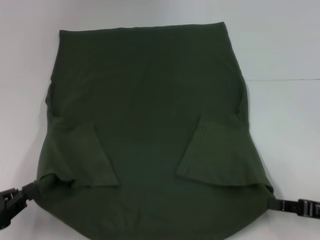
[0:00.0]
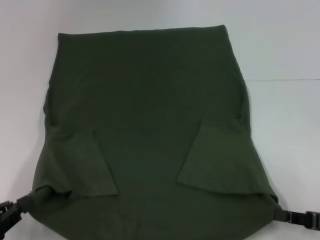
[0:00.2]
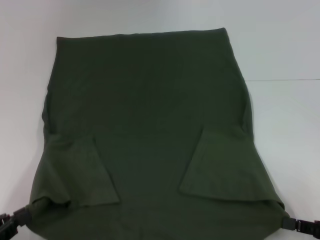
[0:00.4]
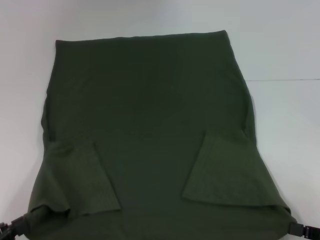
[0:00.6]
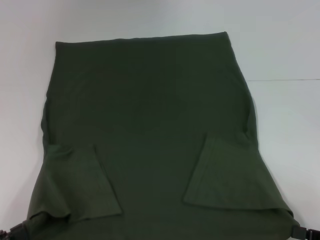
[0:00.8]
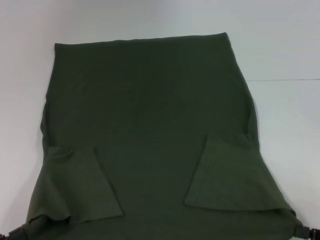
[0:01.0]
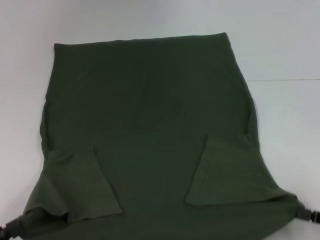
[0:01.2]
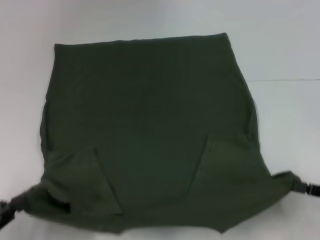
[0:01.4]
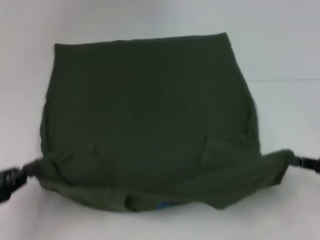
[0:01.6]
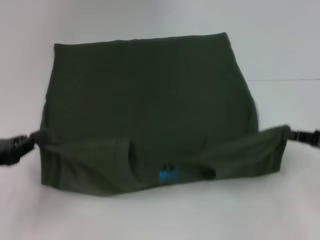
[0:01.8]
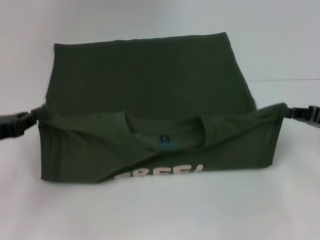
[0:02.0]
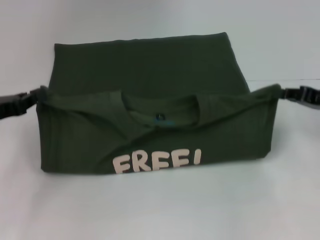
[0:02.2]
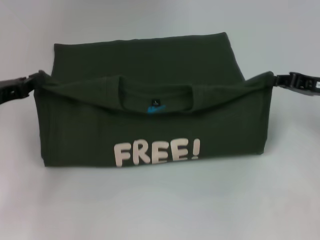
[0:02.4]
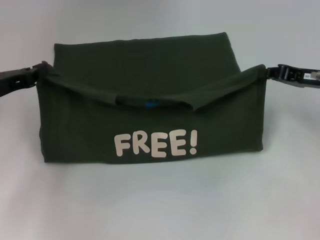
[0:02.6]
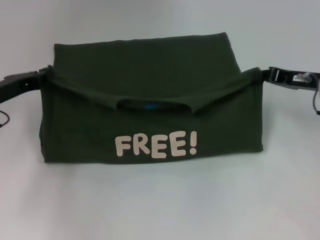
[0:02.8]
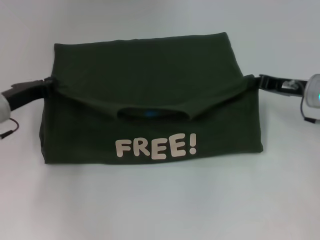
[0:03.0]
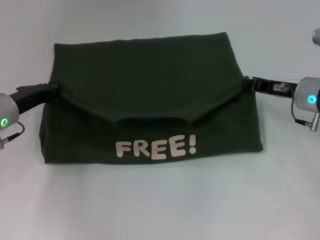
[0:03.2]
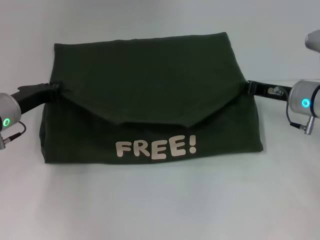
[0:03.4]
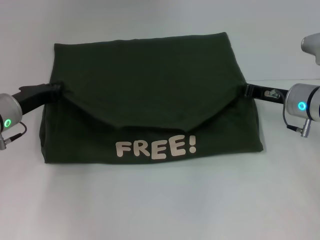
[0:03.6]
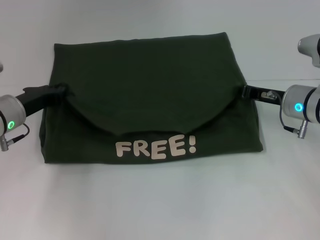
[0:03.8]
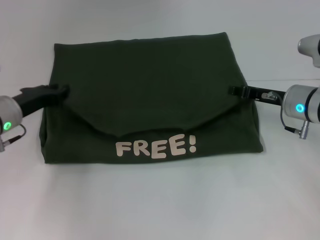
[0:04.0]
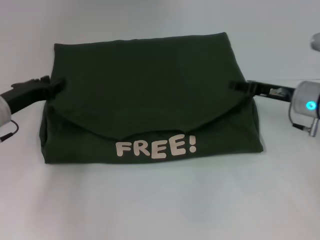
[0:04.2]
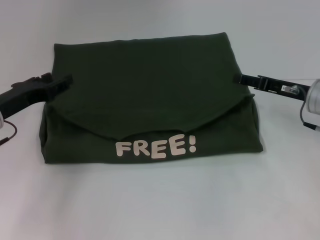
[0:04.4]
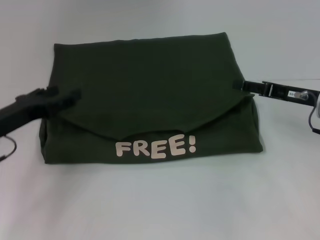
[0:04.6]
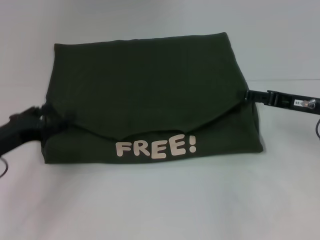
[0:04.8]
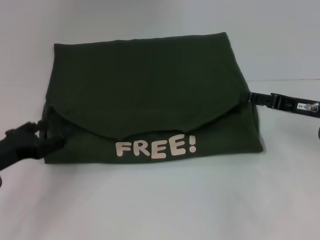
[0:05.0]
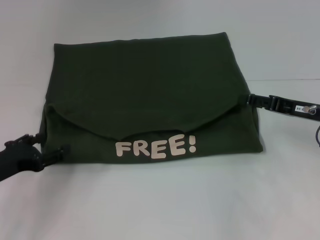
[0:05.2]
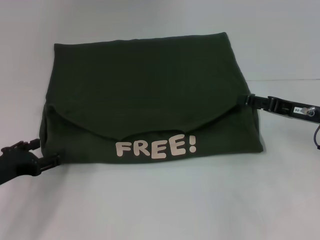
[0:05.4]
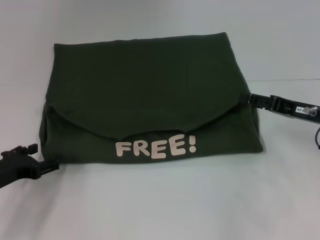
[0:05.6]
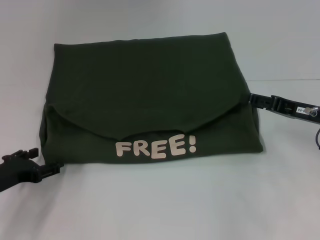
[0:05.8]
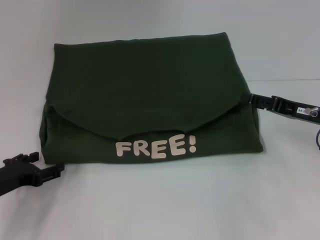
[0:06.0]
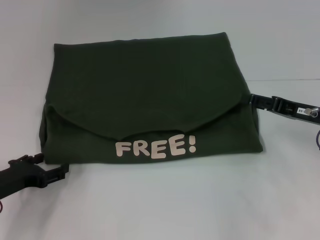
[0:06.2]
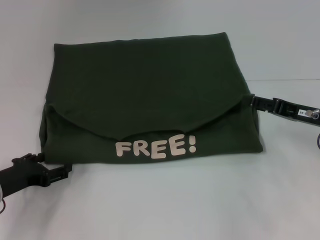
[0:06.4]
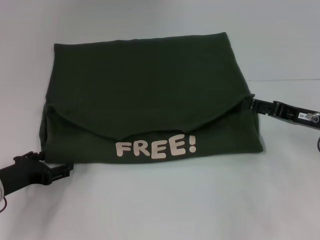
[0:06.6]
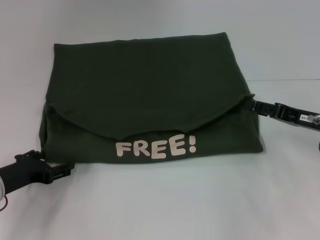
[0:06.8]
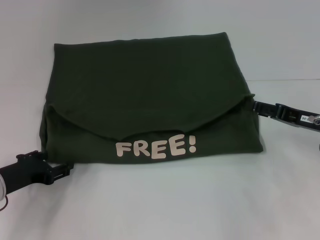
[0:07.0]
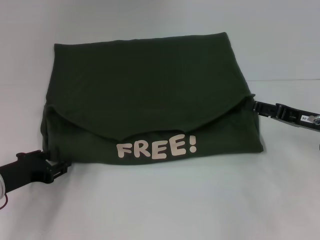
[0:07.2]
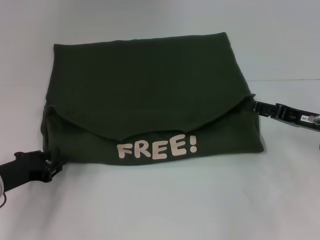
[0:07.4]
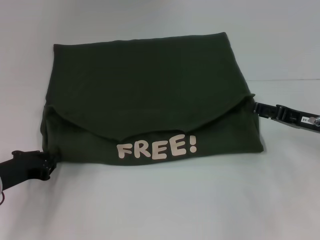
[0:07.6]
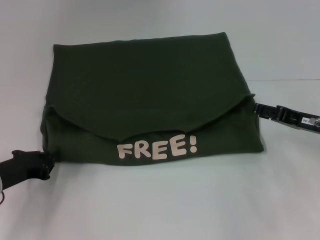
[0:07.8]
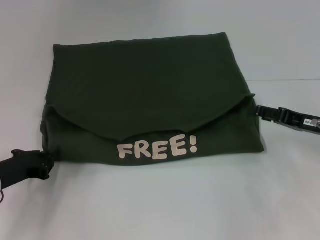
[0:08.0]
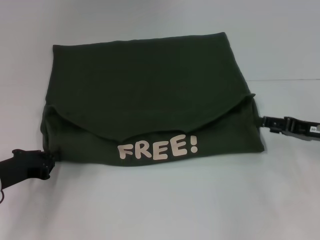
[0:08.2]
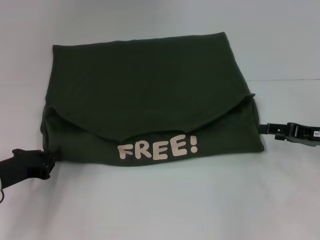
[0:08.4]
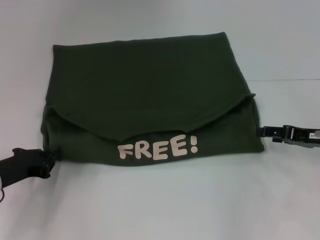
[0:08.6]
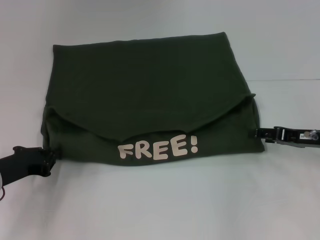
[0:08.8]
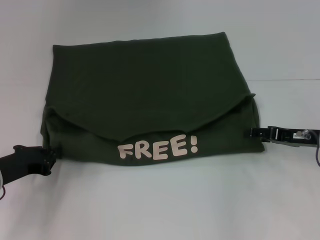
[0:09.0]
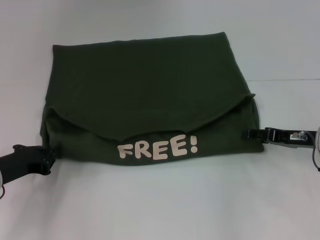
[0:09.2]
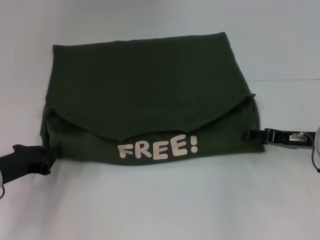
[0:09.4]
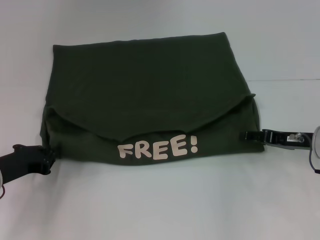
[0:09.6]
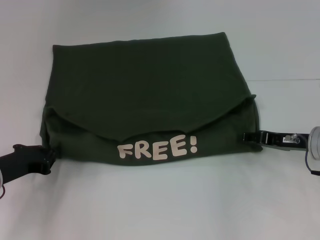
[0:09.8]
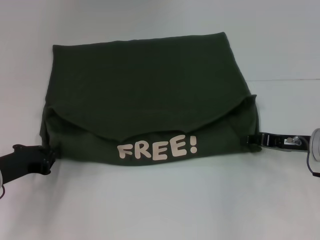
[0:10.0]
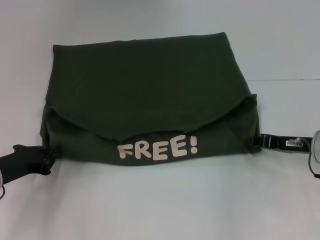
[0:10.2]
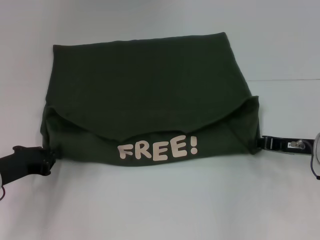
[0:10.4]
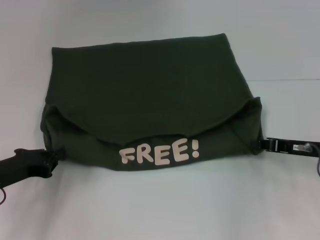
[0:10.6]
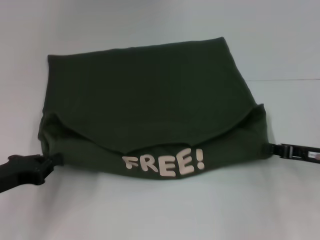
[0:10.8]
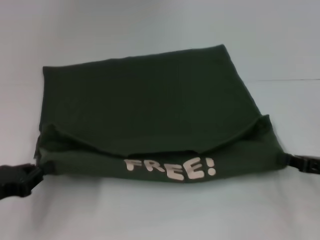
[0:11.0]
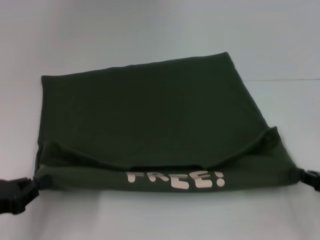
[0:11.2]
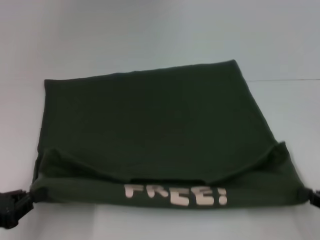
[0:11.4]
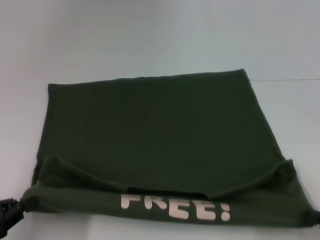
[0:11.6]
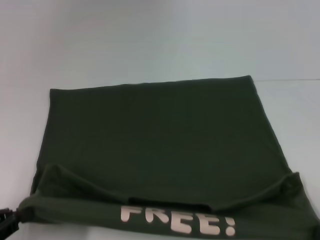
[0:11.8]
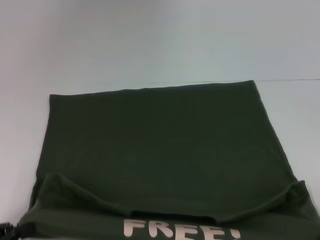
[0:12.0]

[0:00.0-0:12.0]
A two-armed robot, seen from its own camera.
Step, 0:00.0 to 0:04.8: Fold the clothes with your left hand.
Step, 0:00.0 to 0:04.8: Fold the clothes with your right hand.
Step, 0:05.0 to 0:11.2: Pull the clothes with your left hand.
Step, 0:05.0 to 0:11.2: Pull the clothes with your right hand.
0:00.0 to 0:01.6: The right gripper travels backward and back again, about 5 cm each way, while the left gripper travels backward and back again, about 5 cm each way.
0:01.6 to 0:03.0: The left gripper heads forward, covering about 20 cm; the right gripper is displaced forward and to the left by approximately 15 cm.
0:03.0 to 0:04.4: The left gripper opens up. Meanwhile the right gripper opens up.
0:04.4 to 0:06.0: The left gripper is displaced downward and backward by approximately 10 cm, and opens up, while the right gripper opens.
0:06.0 to 0:07.6: The left gripper closes up.
0:07.6 to 0:09.0: The grippers make only small movements.
0:09.0 to 0:10.4: The right gripper closes up.
0:10.4 to 0:12.0: The left gripper is displaced backward by approximately 15 cm. The right gripper travels backward by some 25 cm.

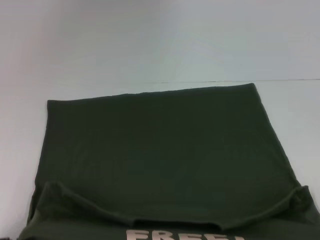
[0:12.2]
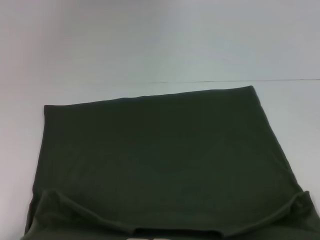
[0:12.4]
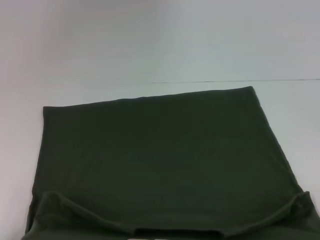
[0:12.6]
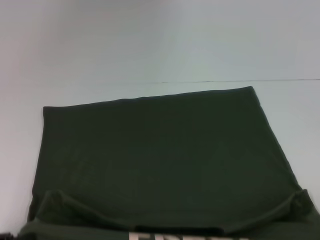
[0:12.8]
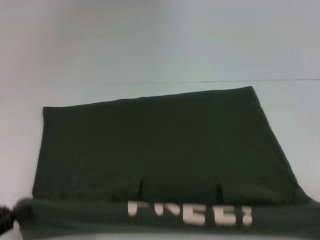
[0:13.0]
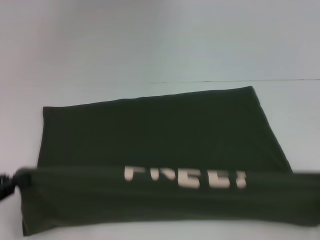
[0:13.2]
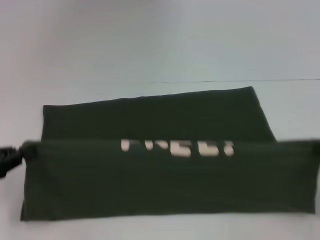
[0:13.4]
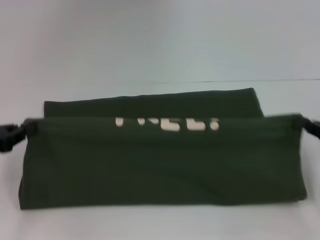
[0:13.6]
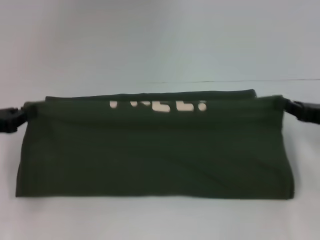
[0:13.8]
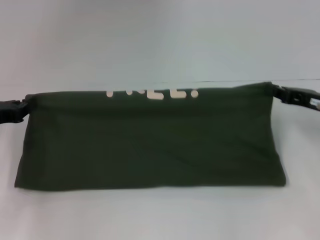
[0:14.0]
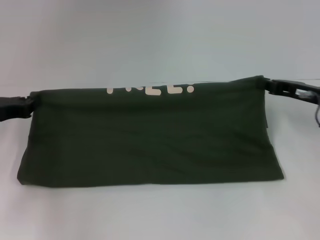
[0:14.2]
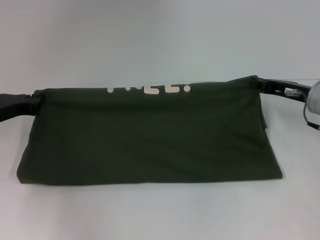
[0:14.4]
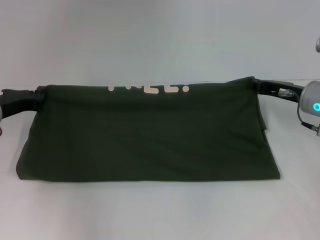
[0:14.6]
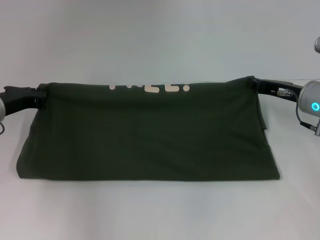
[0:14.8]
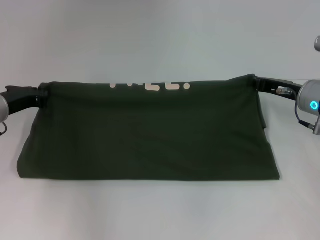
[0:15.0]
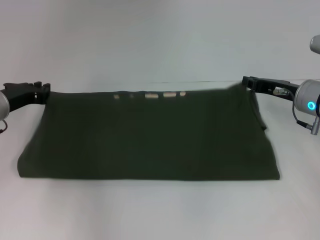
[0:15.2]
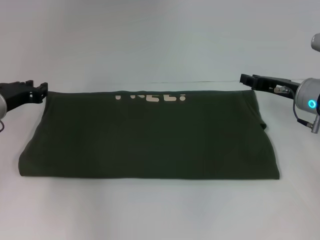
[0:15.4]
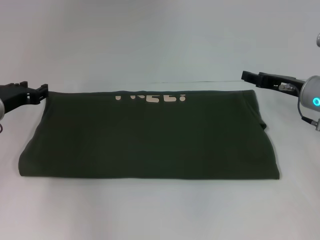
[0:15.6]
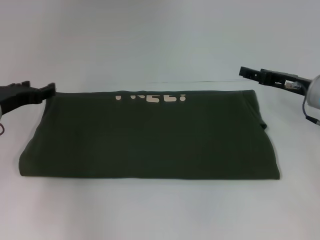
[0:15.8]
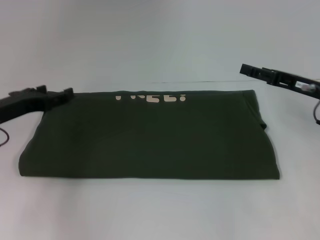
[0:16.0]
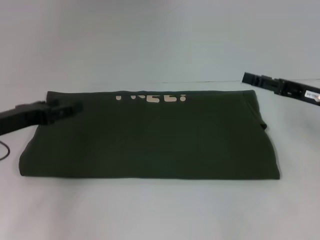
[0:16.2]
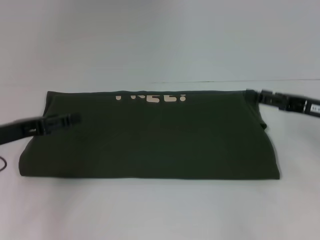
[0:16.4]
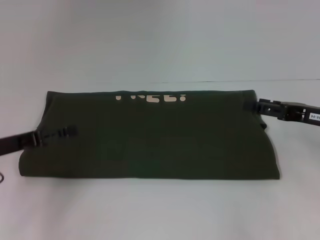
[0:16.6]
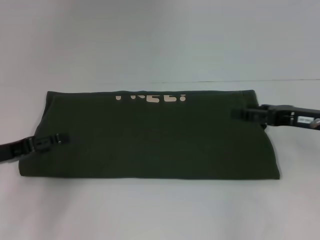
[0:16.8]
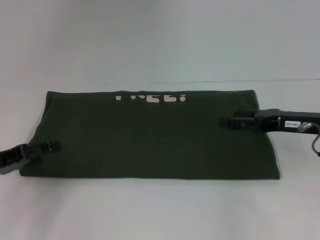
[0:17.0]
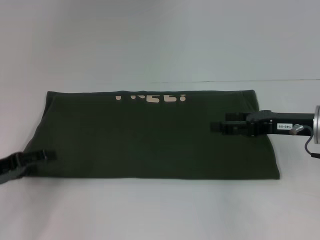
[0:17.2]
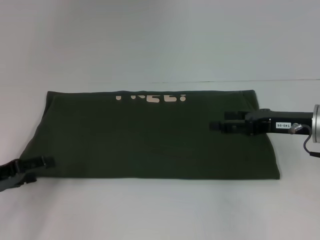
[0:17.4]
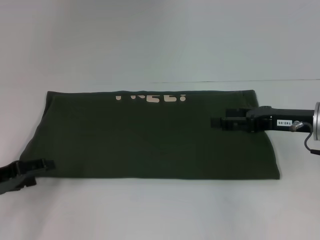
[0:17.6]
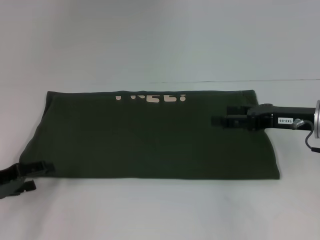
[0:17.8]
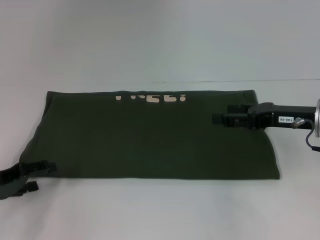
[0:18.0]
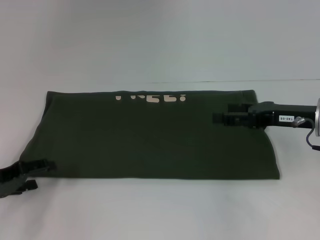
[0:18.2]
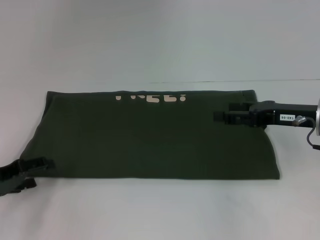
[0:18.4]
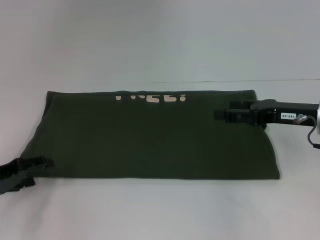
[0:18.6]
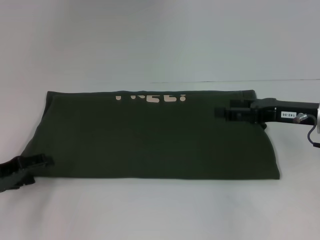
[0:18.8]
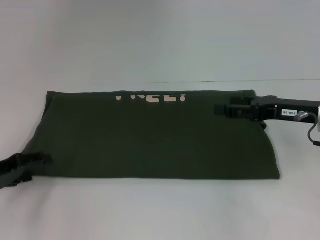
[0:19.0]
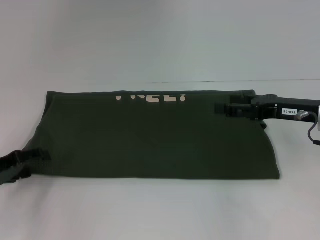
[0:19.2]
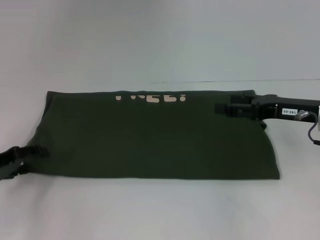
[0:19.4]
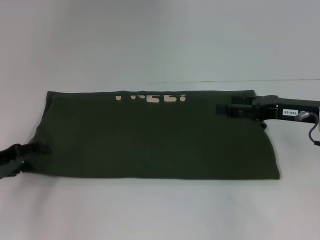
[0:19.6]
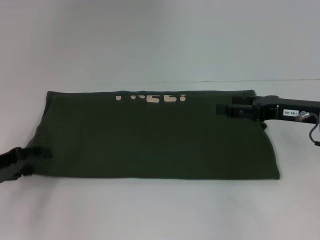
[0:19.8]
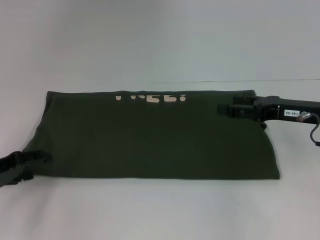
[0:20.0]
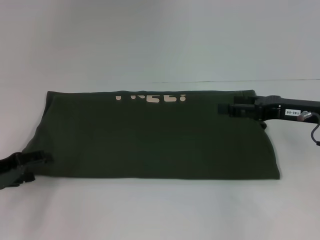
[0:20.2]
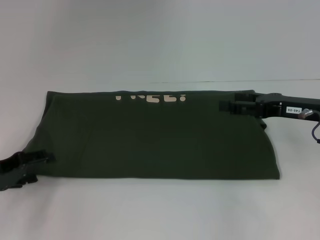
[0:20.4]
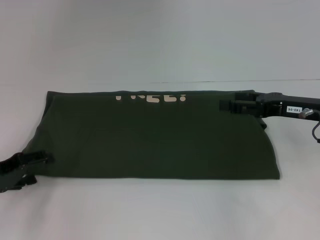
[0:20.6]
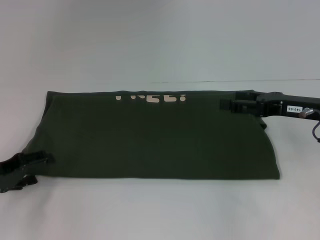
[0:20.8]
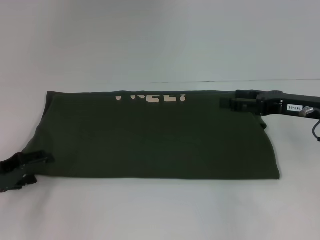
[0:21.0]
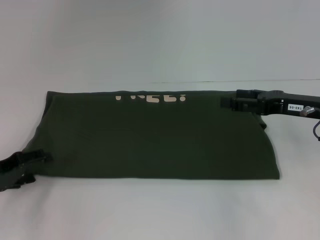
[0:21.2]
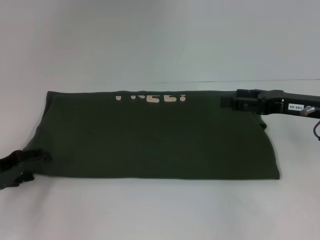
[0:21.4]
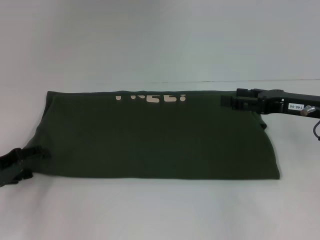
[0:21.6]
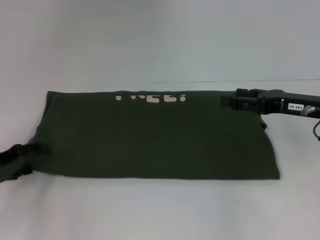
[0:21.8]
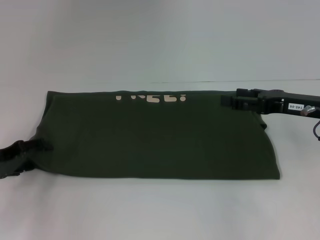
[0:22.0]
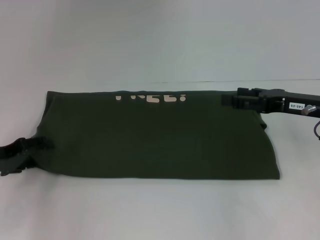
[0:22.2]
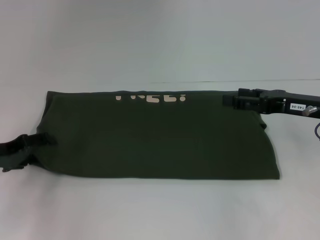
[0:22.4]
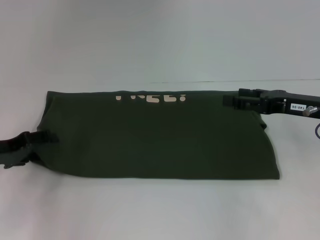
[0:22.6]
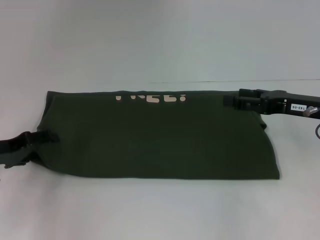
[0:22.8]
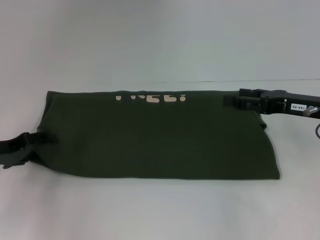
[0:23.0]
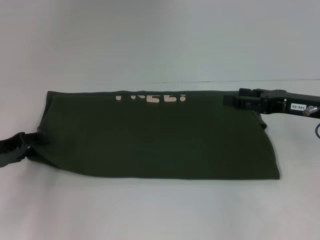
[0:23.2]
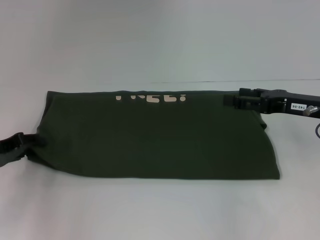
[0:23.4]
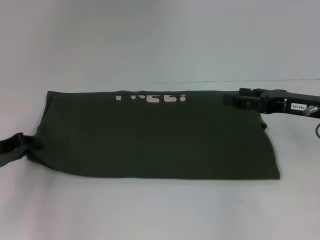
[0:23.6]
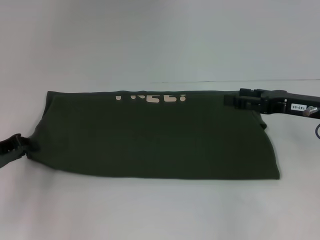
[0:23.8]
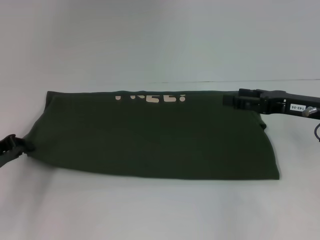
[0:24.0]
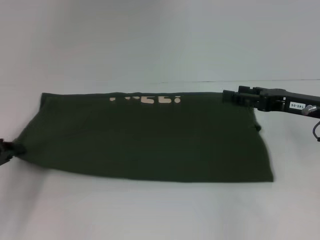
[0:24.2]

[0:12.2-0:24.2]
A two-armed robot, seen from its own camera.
Step, 0:12.2 to 0:15.6: Fold the clothes with your right hand.
0:12.2 to 0:13.8: Both grippers move forward, some 20 cm.
0:13.8 to 0:15.2: The left gripper moves forward and to the right, approximately 10 cm, while the right gripper shifts roughly 10 cm forward and to the left.
0:15.2 to 0:16.6: The two grippers go some 10 cm backward. The left gripper opens. Meanwhile the right gripper opens its fingers.
0:16.6 to 0:18.2: The left gripper shifts by approximately 5 cm.
0:18.2 to 0:22.6: The grippers move only a little.
0:22.6 to 0:24.2: The left gripper closes up.
